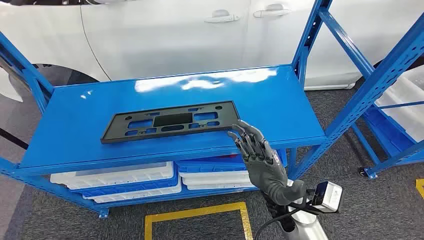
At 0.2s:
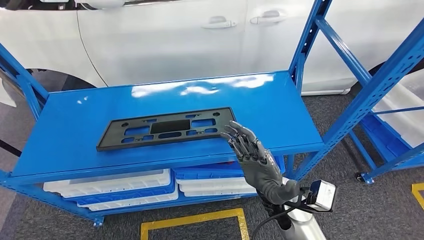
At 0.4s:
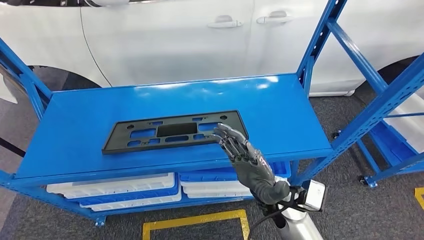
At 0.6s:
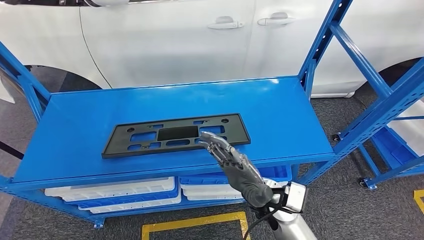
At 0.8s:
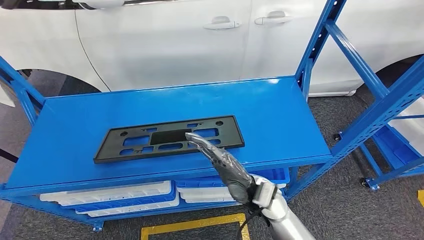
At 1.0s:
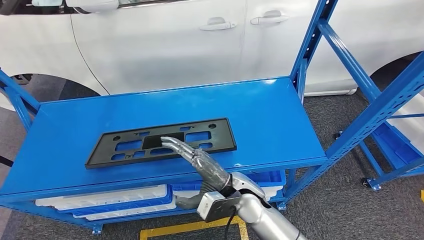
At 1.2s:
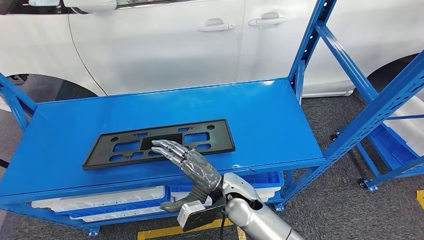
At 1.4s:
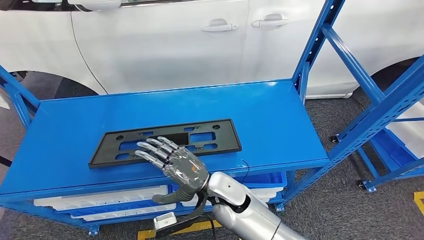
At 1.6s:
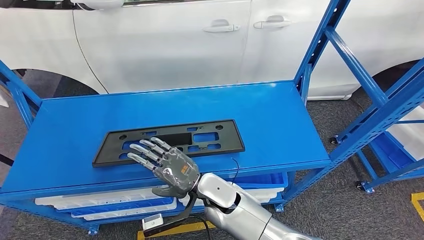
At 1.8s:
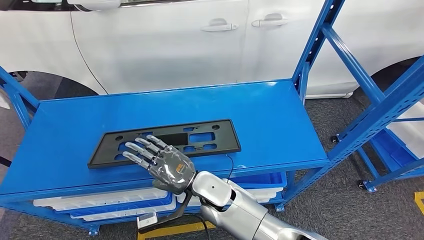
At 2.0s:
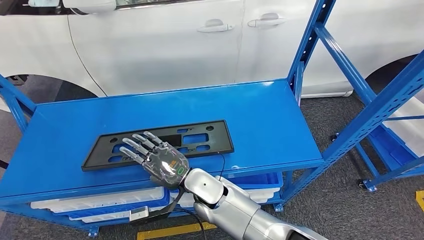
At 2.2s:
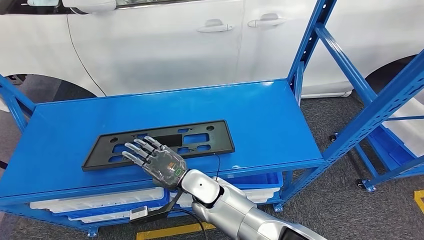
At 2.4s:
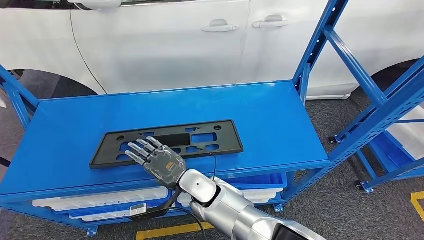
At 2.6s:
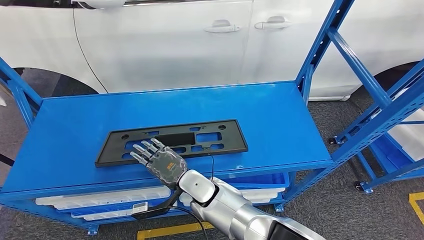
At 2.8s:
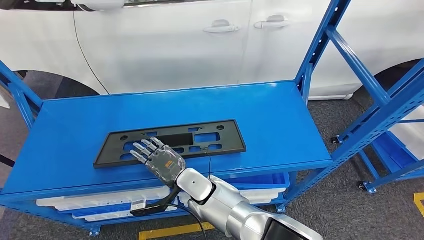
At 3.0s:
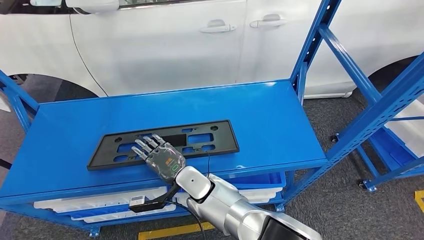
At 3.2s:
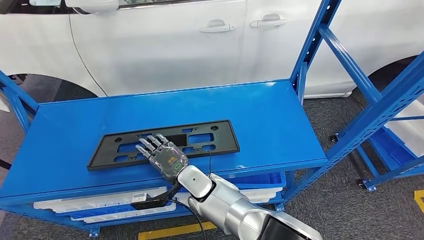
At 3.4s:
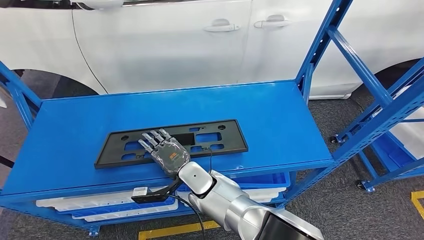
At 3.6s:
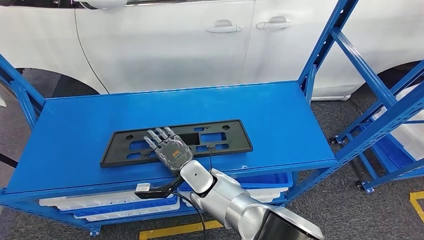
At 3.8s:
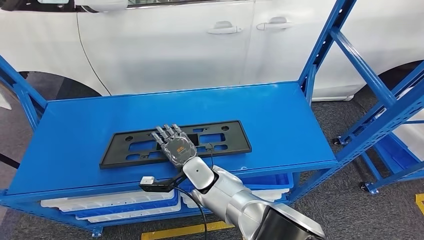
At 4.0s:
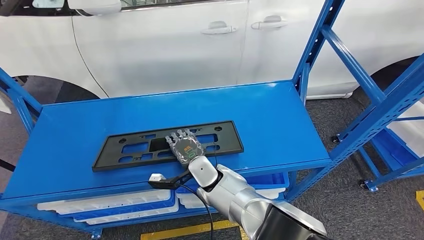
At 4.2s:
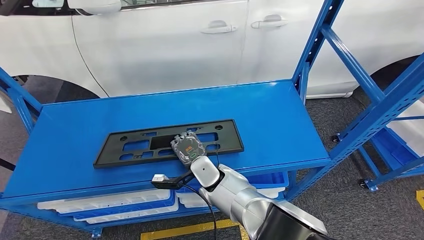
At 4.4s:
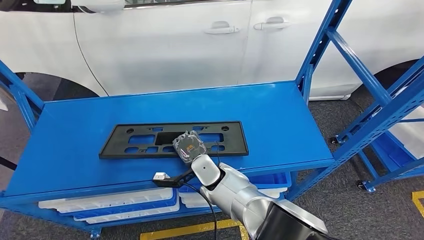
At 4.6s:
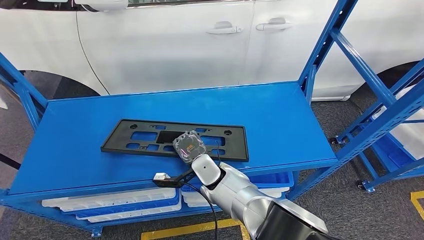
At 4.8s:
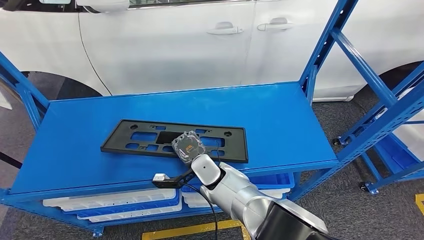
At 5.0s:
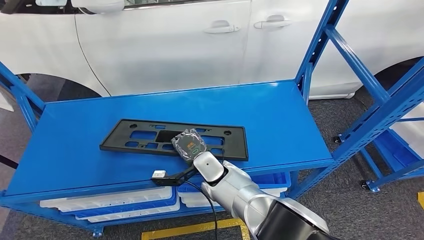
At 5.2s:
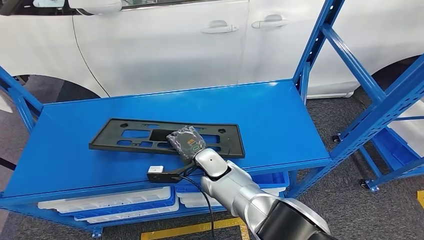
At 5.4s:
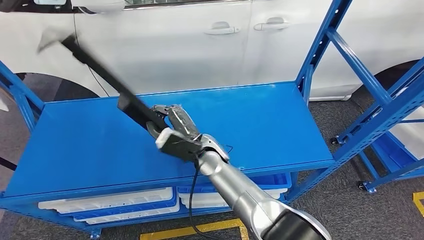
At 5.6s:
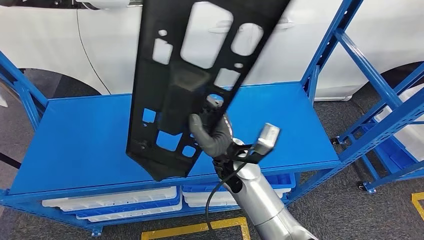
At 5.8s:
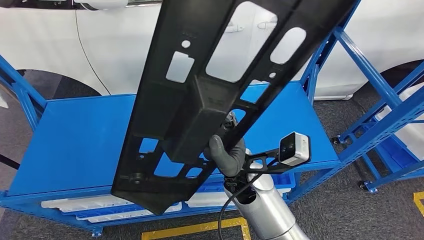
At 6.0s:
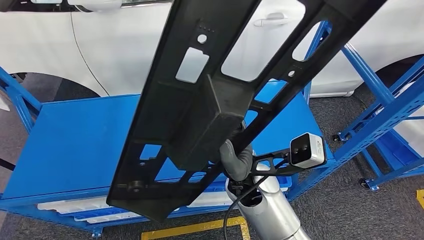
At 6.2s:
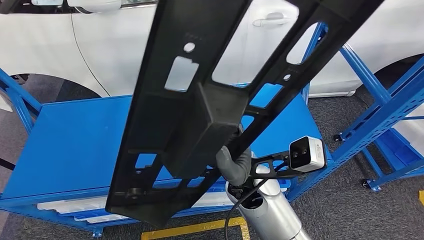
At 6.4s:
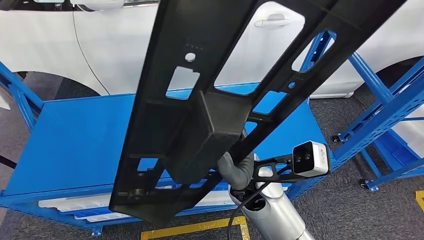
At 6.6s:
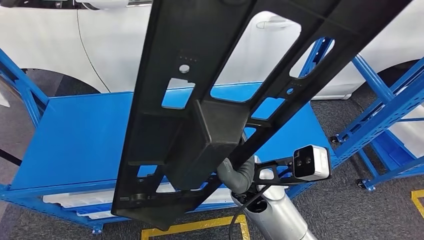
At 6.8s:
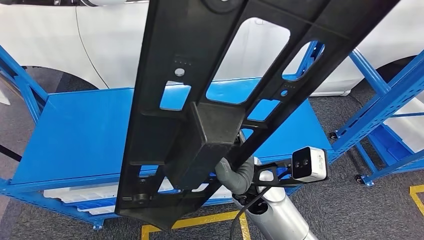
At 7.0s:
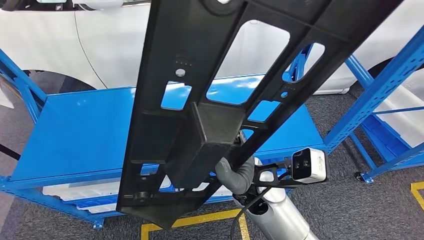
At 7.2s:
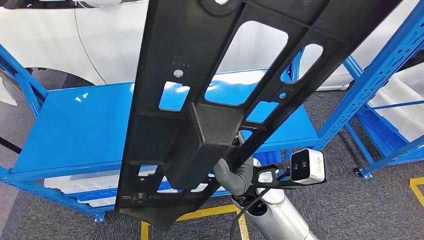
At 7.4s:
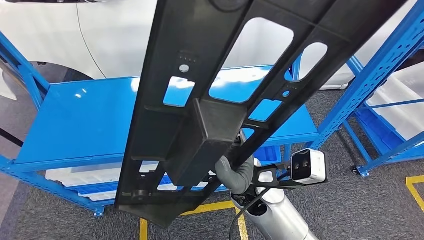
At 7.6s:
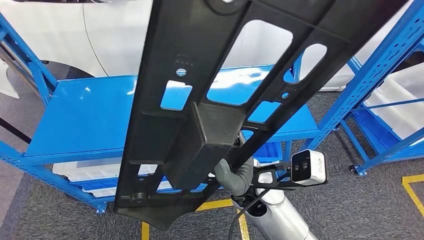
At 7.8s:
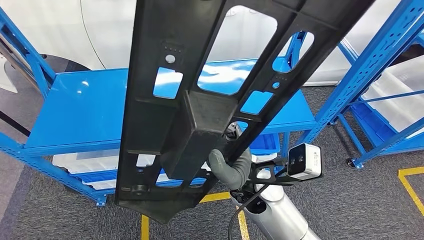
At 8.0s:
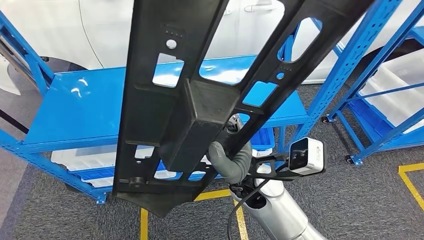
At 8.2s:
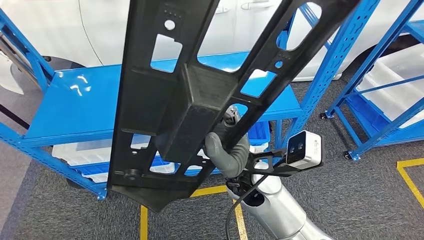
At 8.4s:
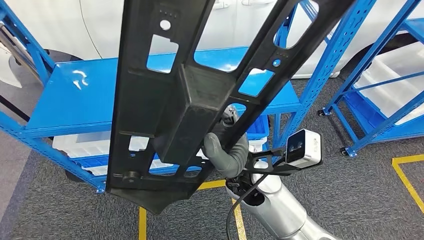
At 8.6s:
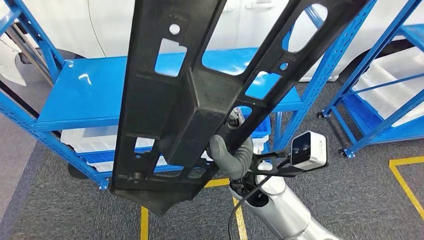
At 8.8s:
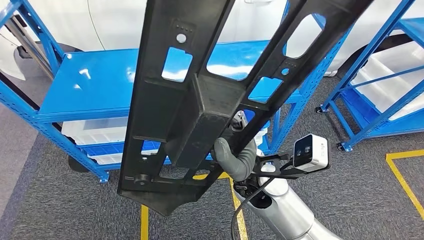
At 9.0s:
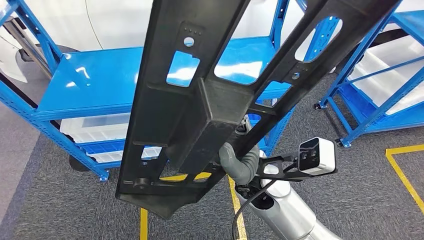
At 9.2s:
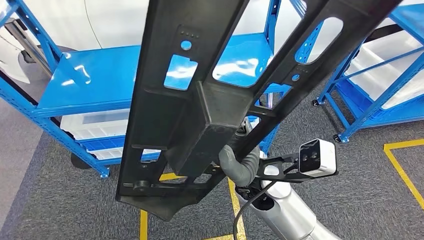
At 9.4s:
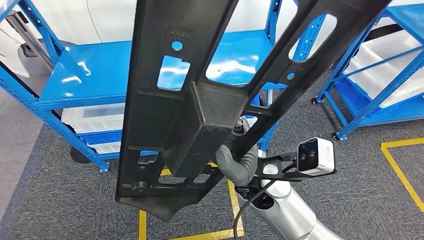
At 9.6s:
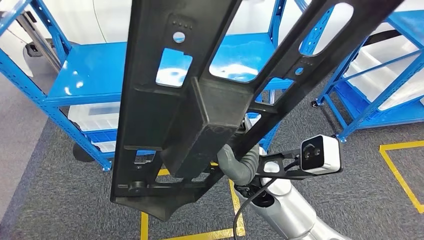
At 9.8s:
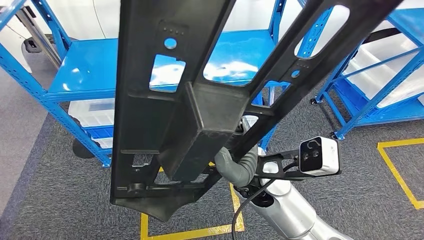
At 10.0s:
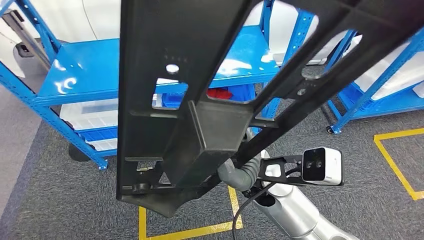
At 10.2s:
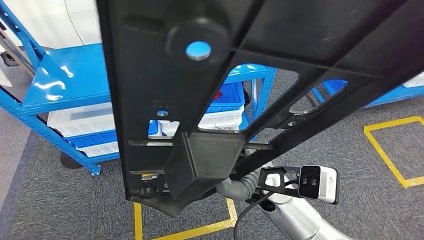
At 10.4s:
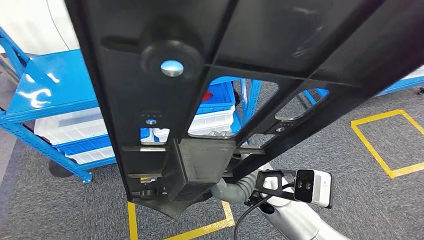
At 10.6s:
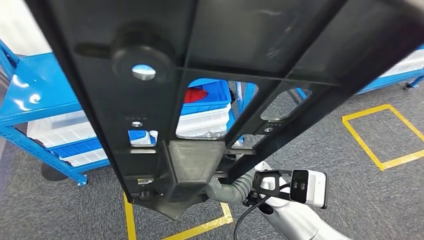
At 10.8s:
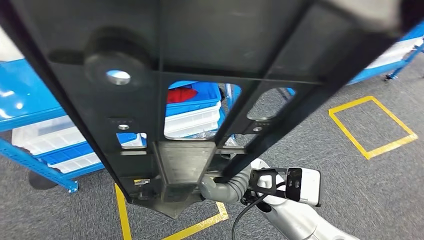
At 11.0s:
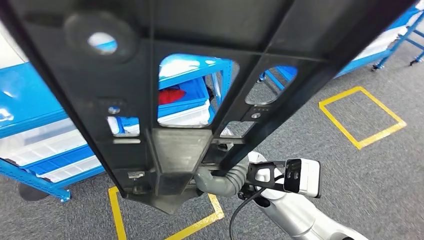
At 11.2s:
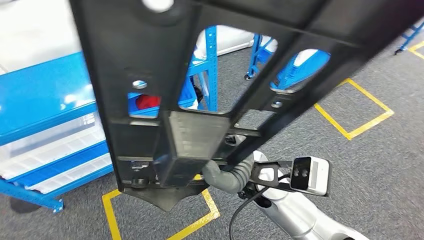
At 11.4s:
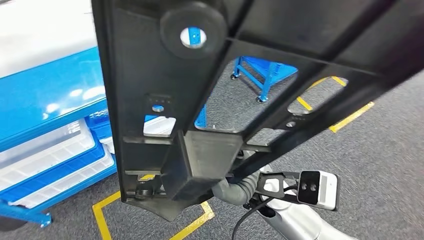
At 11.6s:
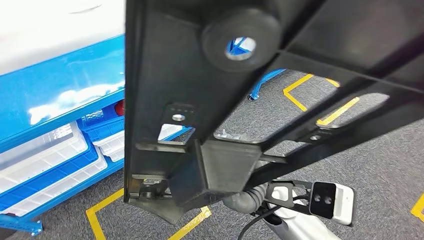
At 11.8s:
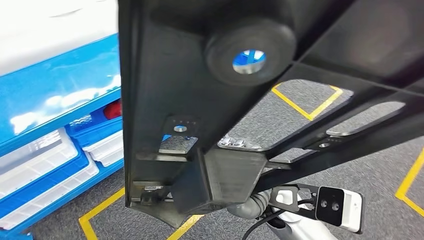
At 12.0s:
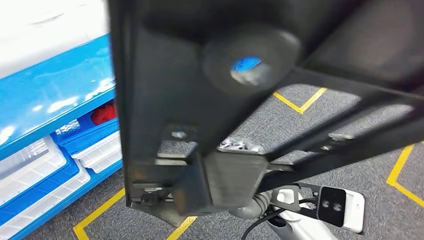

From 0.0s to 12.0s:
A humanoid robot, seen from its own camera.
Step, from 0.0s to 5.2s: Pick up the large material from the shelf.
From 1.6s to 3.0s: The right hand moves roughly 5 cm.

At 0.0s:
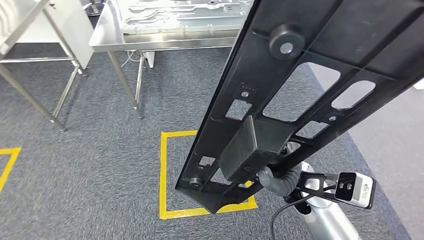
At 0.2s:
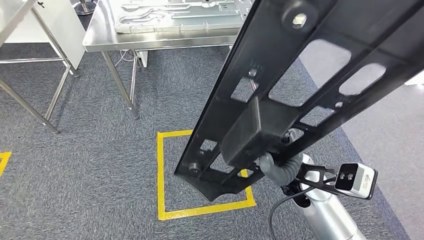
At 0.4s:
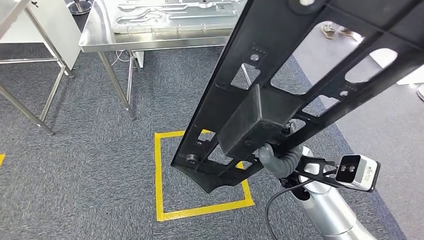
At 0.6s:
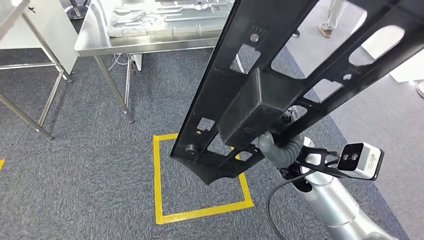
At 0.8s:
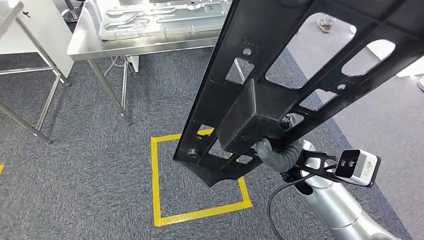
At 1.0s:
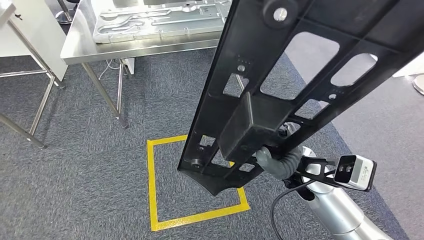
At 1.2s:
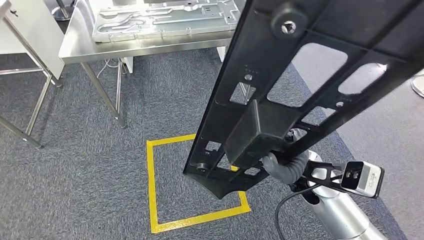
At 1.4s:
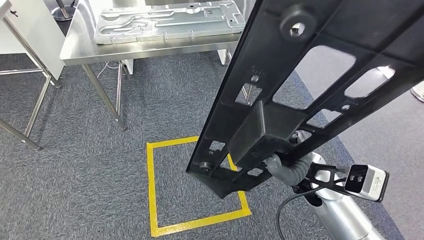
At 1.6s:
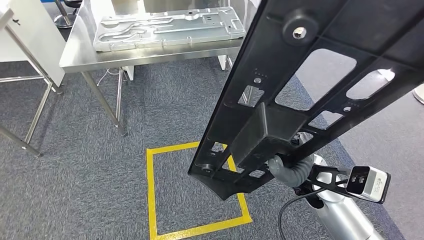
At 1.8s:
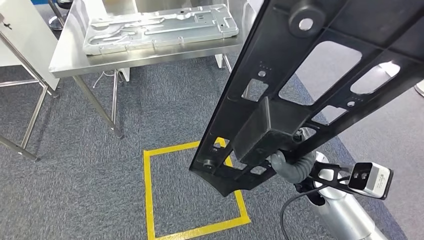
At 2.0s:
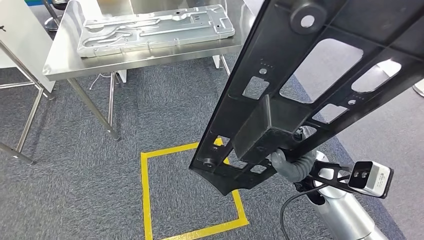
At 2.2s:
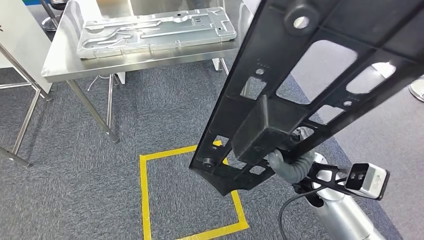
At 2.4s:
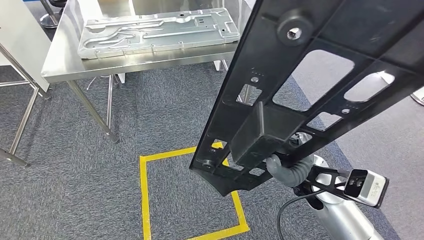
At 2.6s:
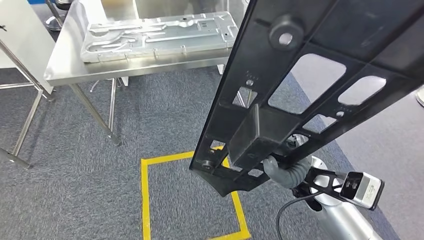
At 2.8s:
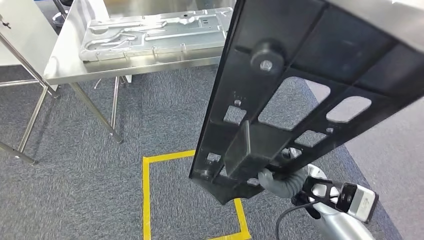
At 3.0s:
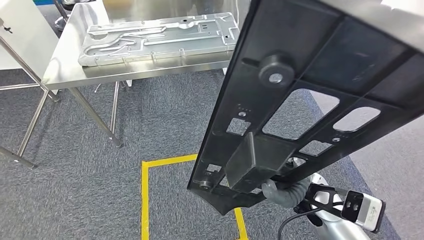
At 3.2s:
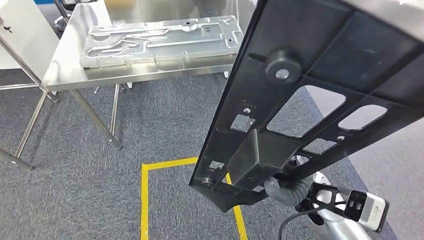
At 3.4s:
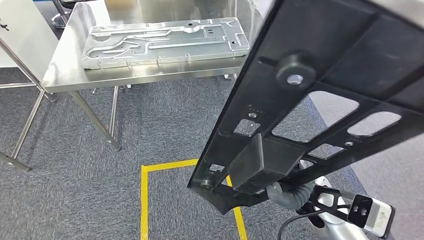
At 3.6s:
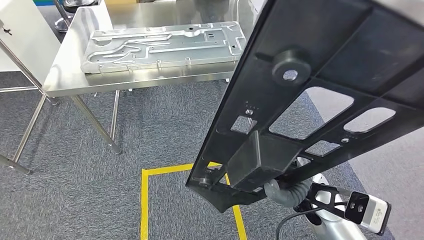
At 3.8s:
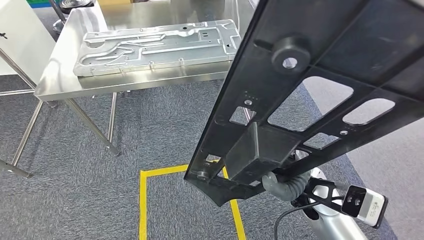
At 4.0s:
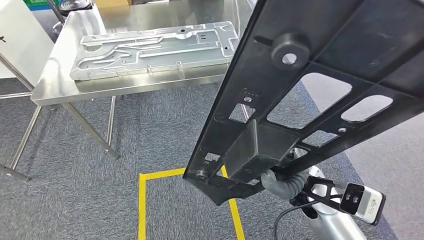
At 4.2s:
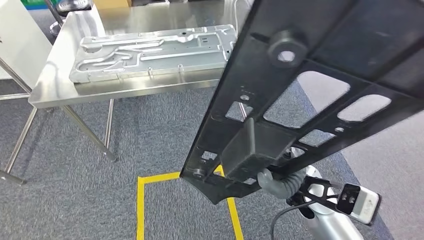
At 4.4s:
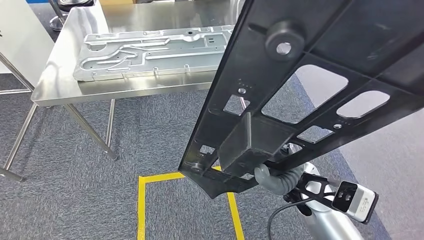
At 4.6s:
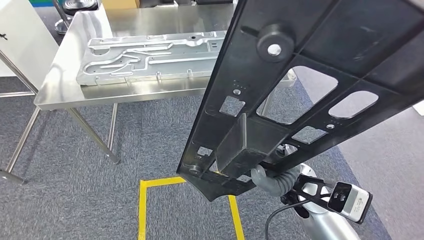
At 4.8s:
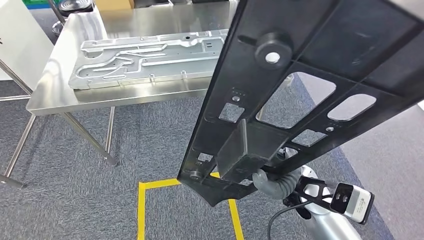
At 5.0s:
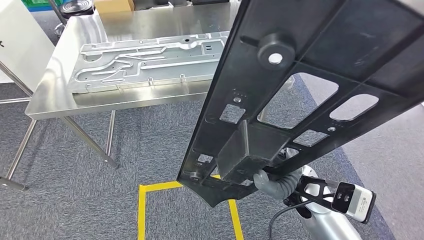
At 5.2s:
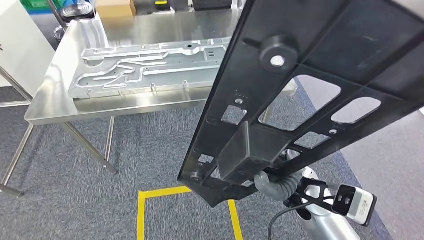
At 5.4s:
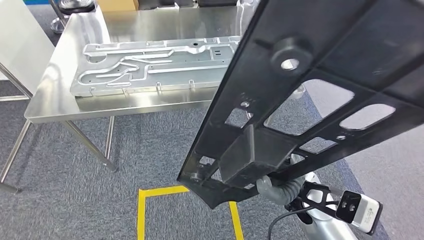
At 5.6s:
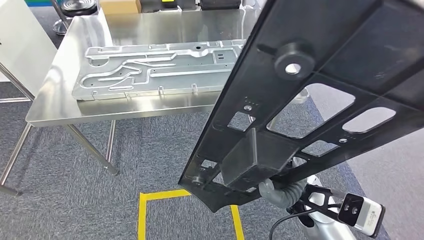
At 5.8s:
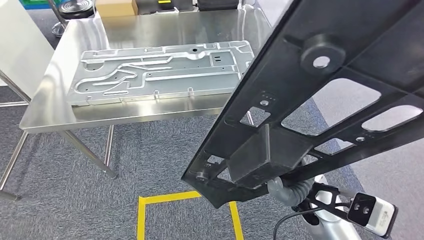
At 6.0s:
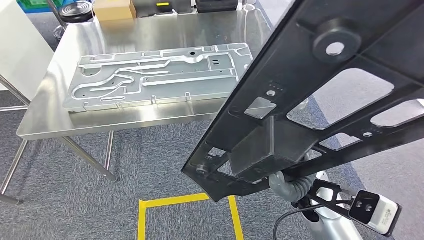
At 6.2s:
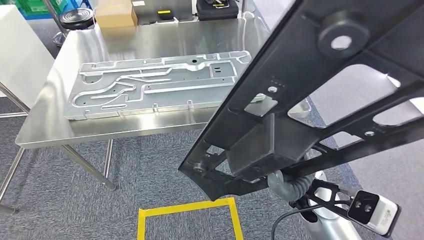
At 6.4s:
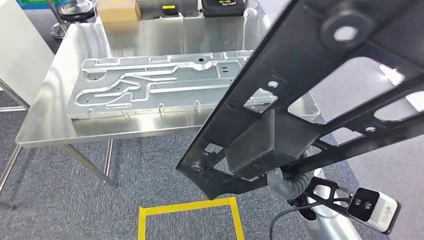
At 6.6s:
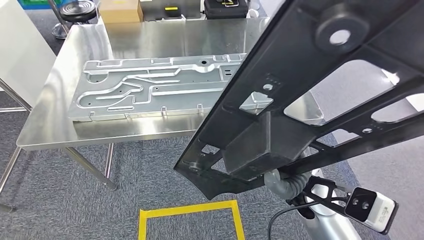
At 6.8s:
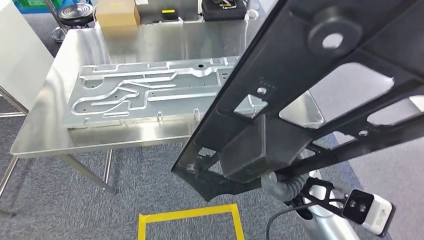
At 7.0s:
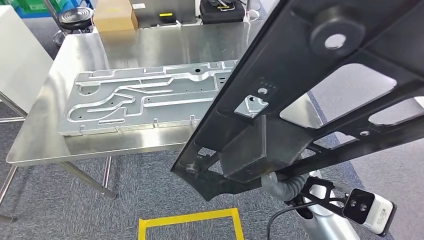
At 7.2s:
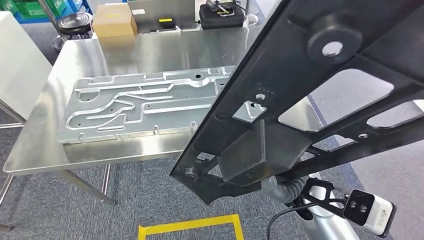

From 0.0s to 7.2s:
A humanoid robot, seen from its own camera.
Step, from 0.0s to 7.0s: Move the large material to the workbench.
